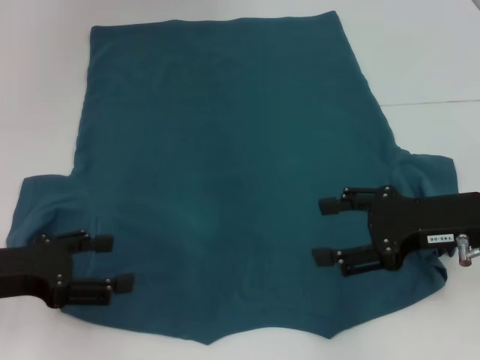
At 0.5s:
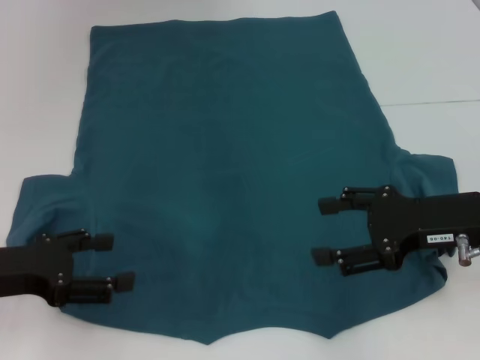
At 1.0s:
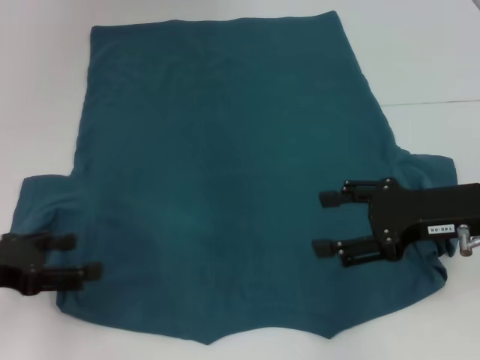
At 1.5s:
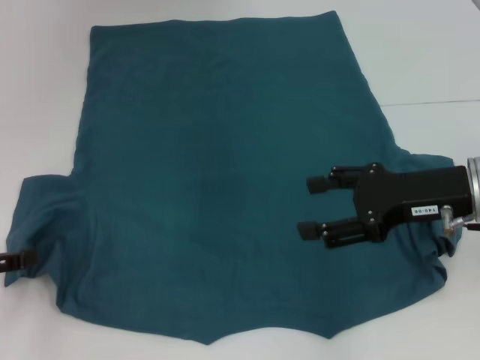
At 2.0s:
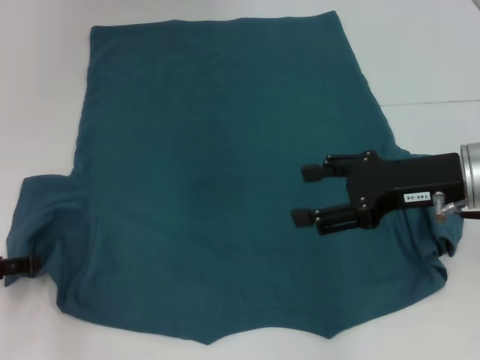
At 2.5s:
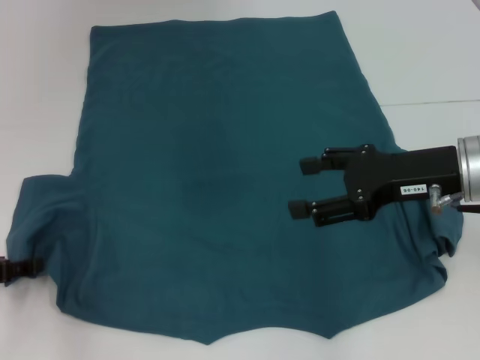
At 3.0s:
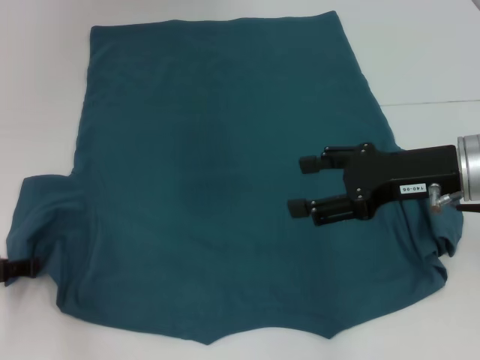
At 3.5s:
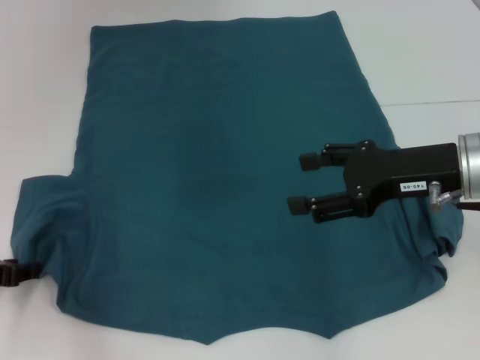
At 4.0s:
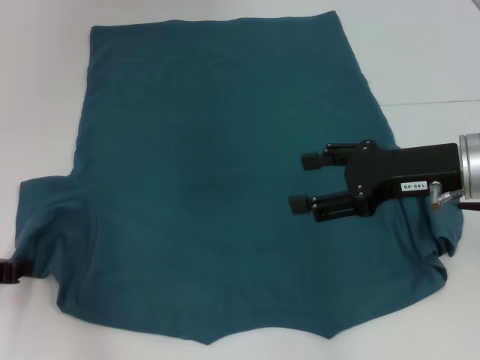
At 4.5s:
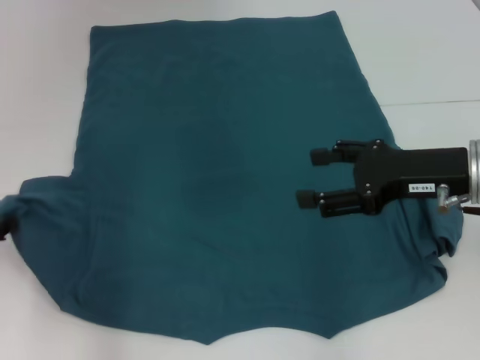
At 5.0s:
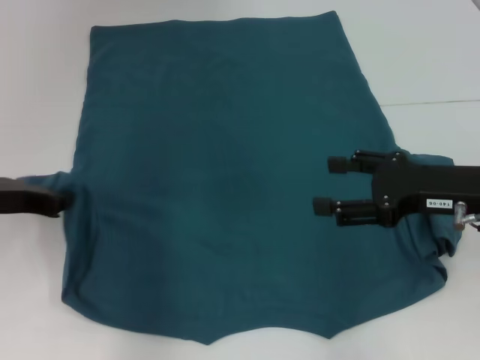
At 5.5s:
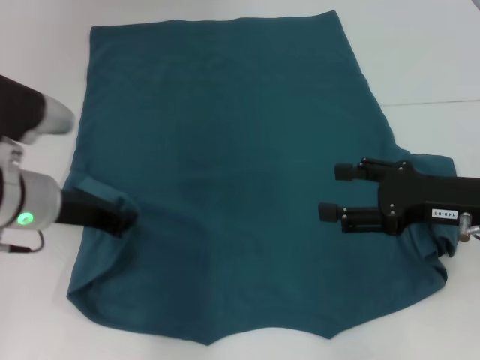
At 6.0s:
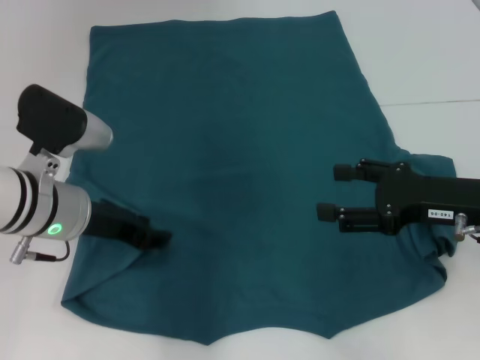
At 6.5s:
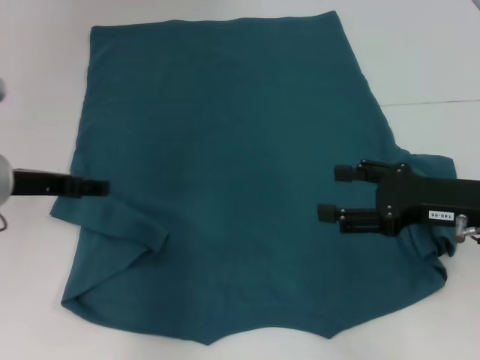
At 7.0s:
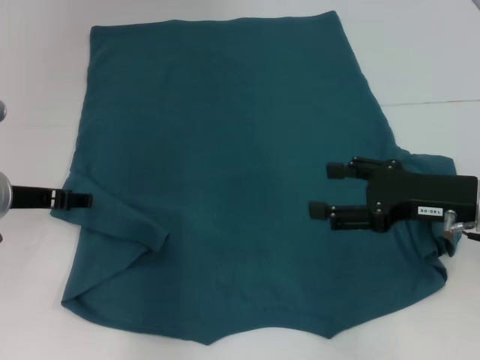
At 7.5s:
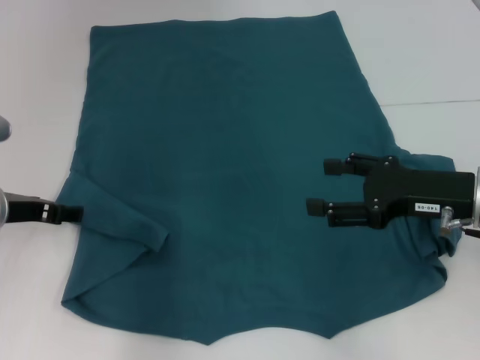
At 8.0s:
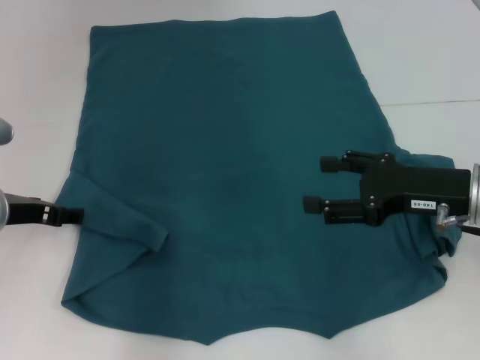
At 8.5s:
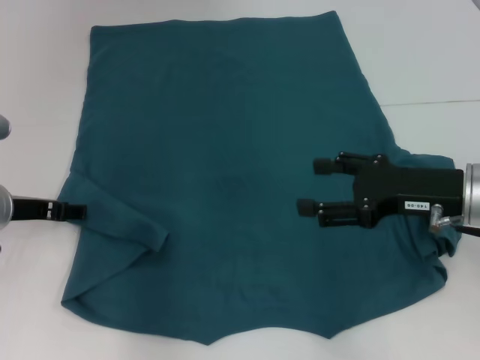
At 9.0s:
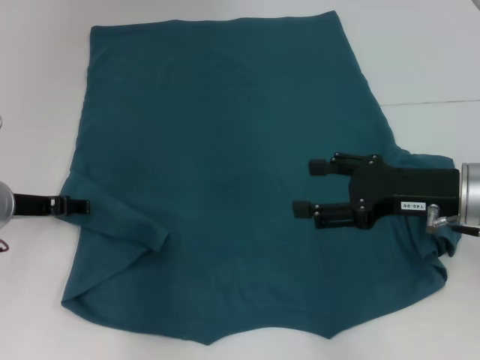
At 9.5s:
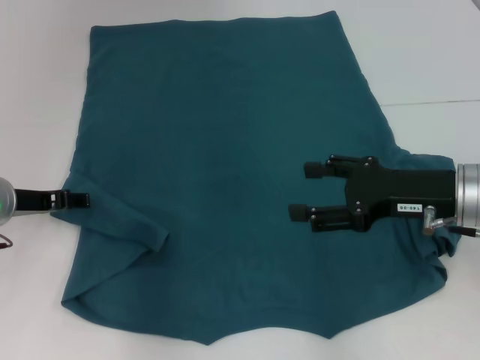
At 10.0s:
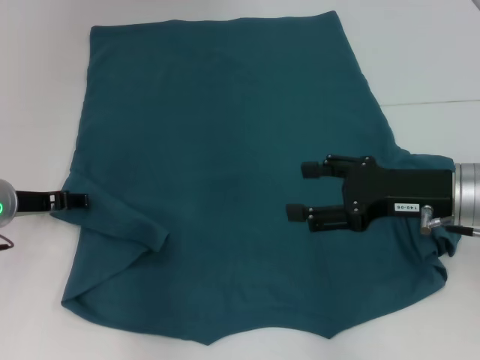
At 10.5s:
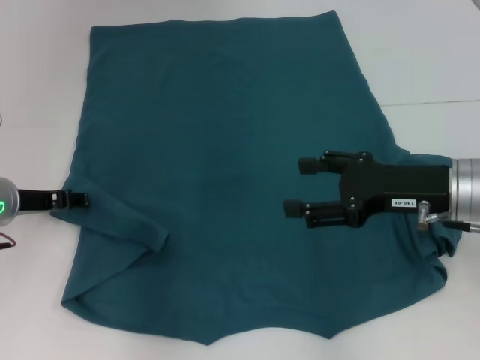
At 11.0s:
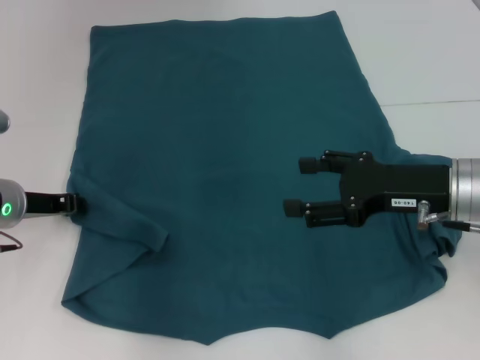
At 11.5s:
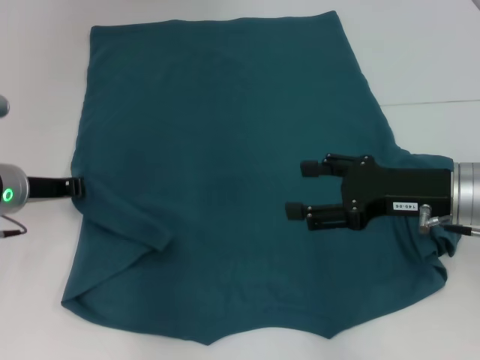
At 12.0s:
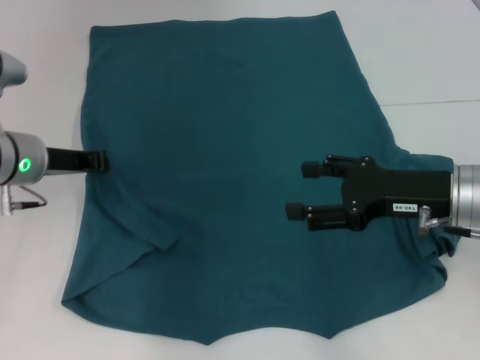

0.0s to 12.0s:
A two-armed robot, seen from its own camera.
0.0s to 2.0s: The left gripper shifts by about 5 cm.
2.0s to 4.0s: The left gripper closes.
4.0s to 6.0s: The right gripper moves roughly 5 cm, while the left gripper moves to the right and forward, roughly 15 cm.
6.0s to 8.0s: The left gripper shifts about 10 cm to the left, and opens its fingers.
8.0s to 10.0s: There are only small adjustments of the grippers.
10.0s to 12.0s: The left gripper changes place by about 5 cm, and closes its fingers.

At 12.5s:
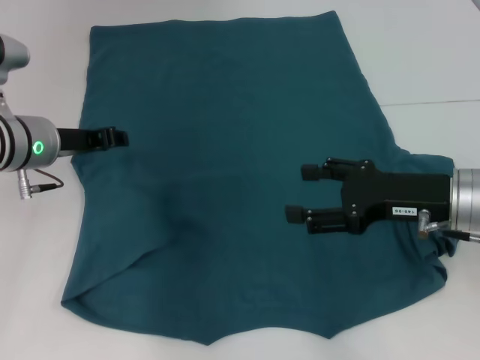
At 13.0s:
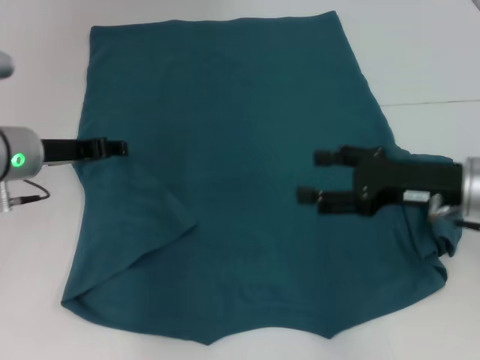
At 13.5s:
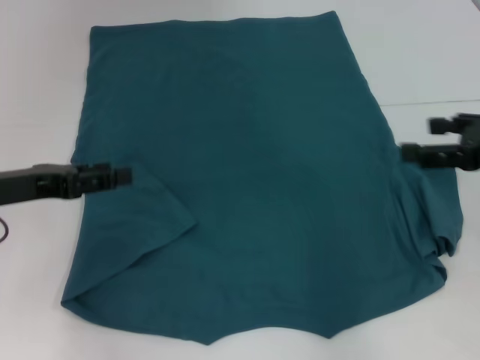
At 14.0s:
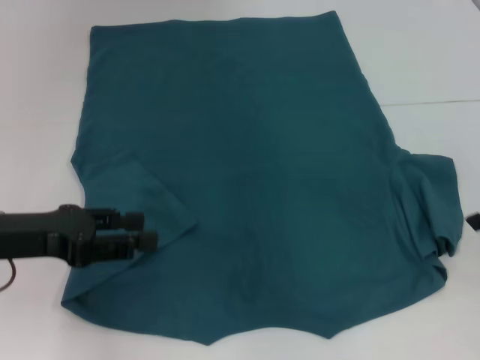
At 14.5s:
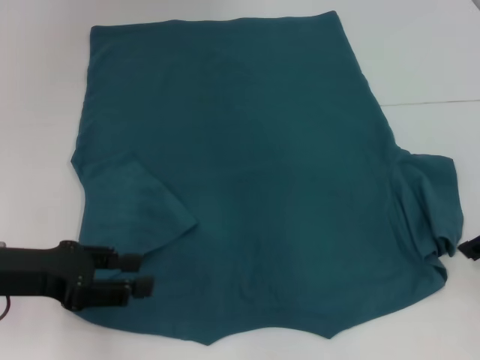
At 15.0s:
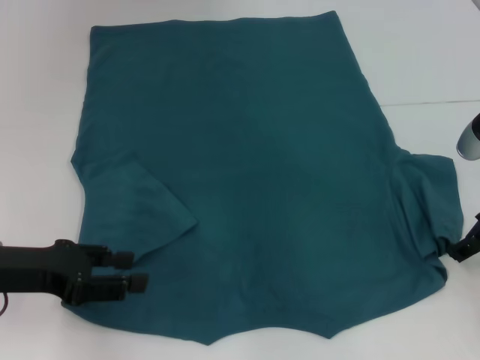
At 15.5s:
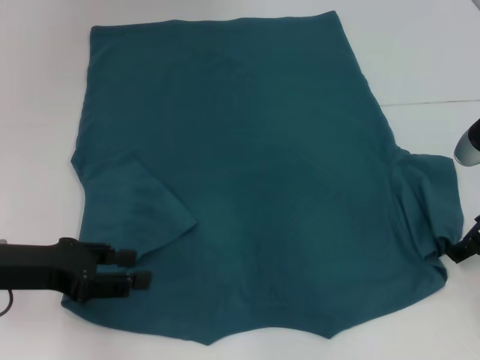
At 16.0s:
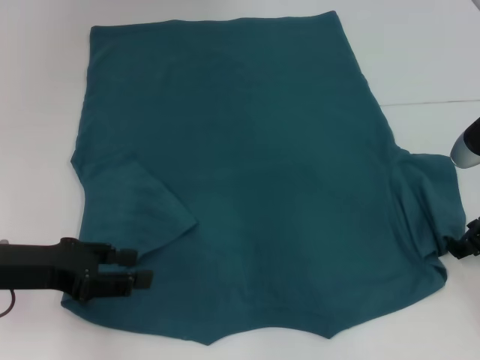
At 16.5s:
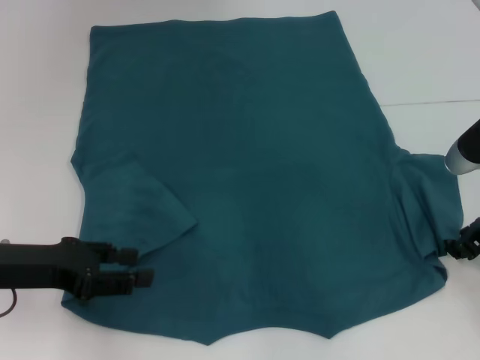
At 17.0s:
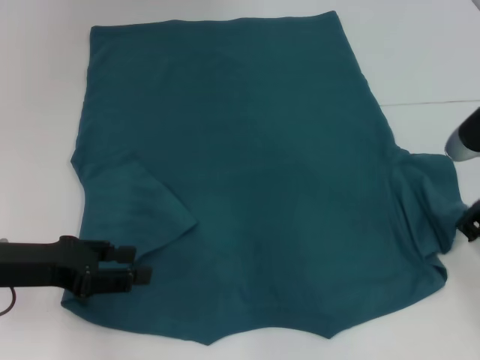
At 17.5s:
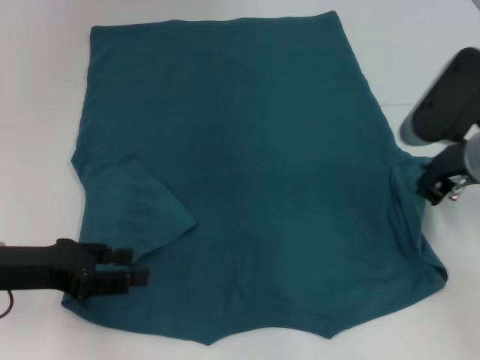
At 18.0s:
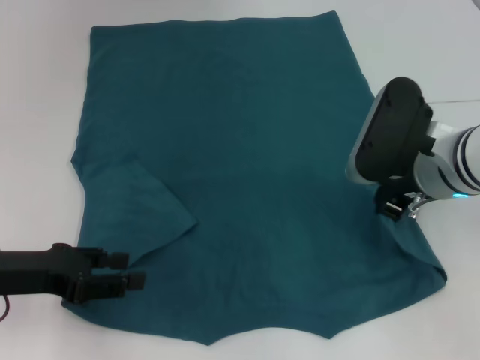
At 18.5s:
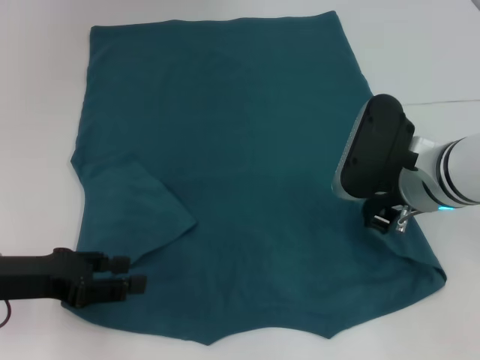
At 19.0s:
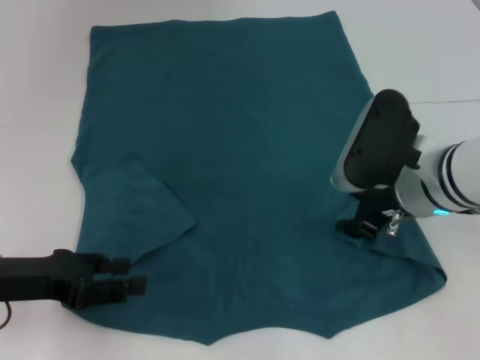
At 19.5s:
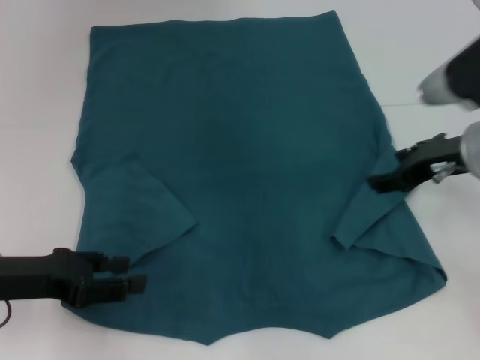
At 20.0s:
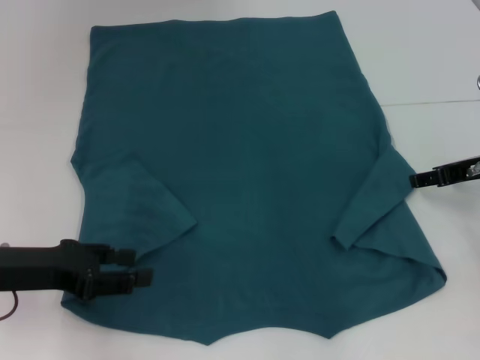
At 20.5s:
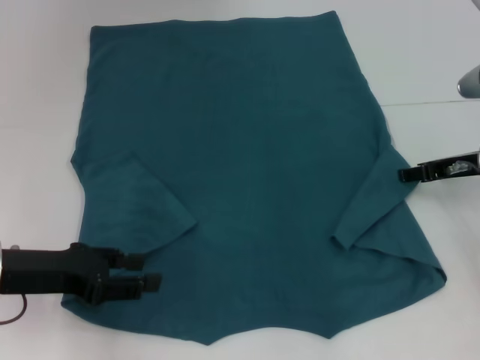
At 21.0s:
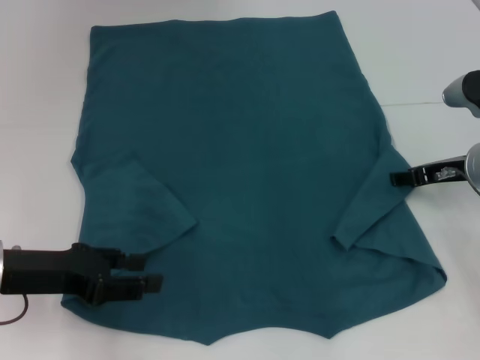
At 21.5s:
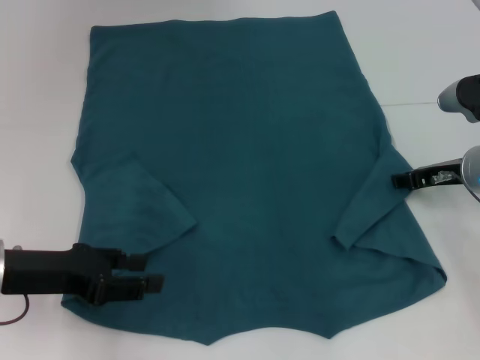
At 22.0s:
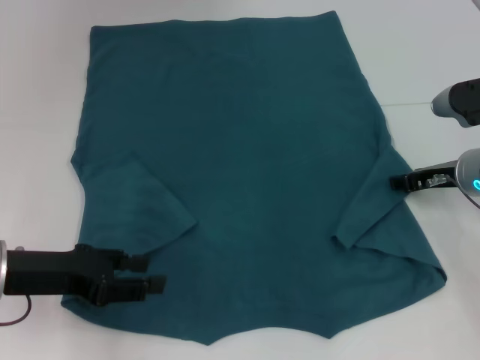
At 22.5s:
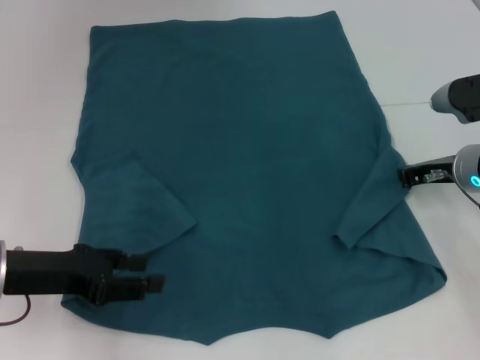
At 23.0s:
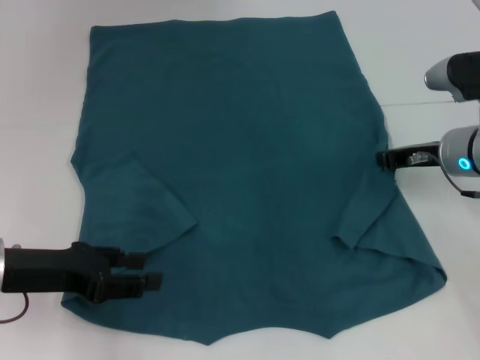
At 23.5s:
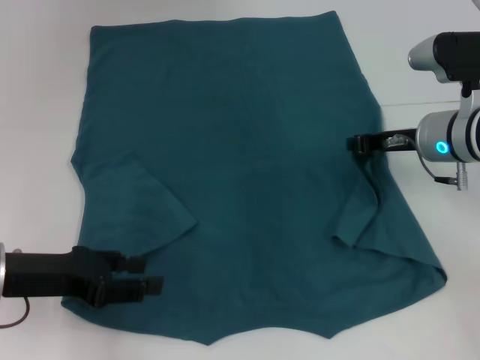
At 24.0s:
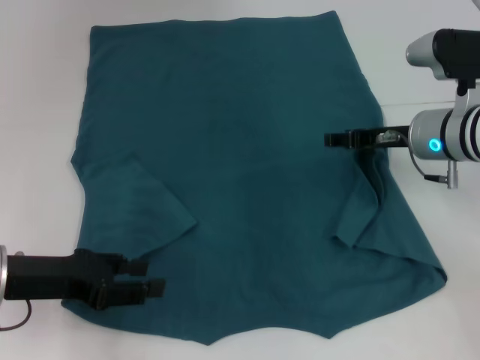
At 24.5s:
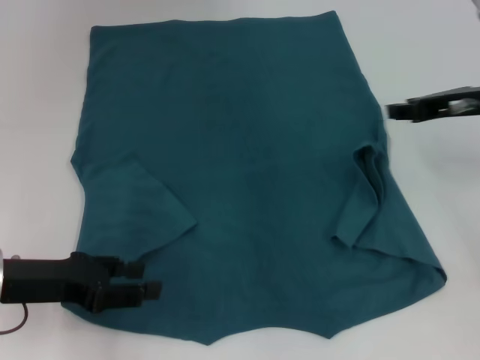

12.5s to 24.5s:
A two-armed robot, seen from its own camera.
12.5s to 14.5s: The left gripper heads backward and to the left, covering some 15 cm, and opens; the right gripper shifts approximately 10 cm to the right and upward.
14.5s to 16.5s: The right gripper shifts about 5 cm downward, and closes up.
16.5s to 18.5s: The right gripper is displaced to the left by roughly 10 cm, and closes.
18.5s to 20.5s: The right gripper shifts approximately 10 cm to the right, and opens up.
20.5s to 22.5s: The right gripper closes up.
22.5s to 24.5s: The right gripper heads upward, covering roughly 10 cm, and opens its fingers.

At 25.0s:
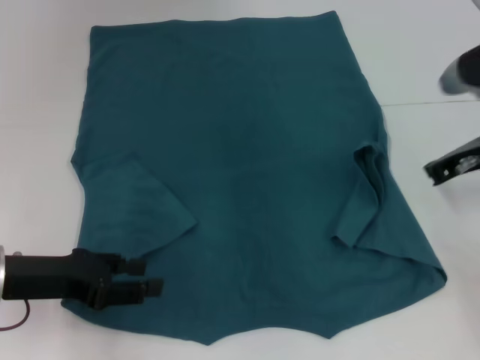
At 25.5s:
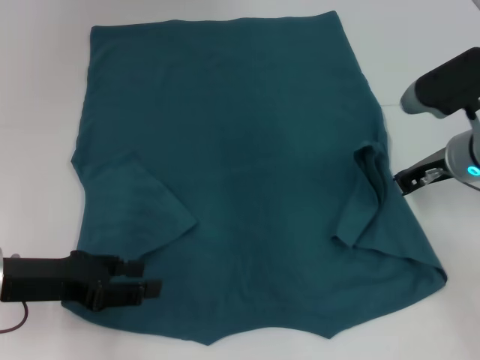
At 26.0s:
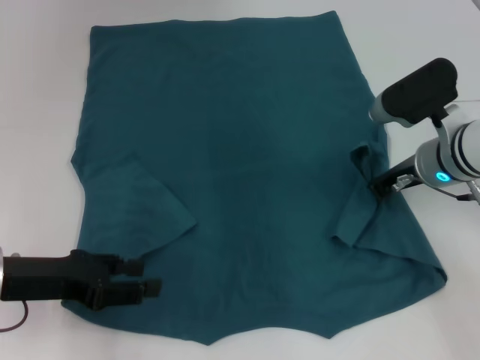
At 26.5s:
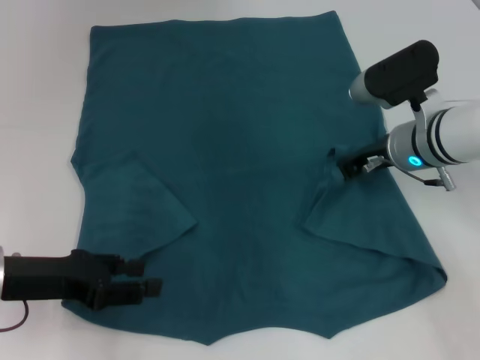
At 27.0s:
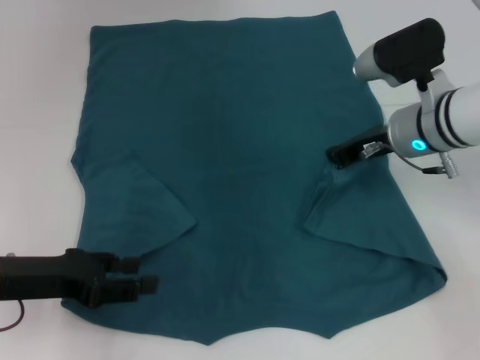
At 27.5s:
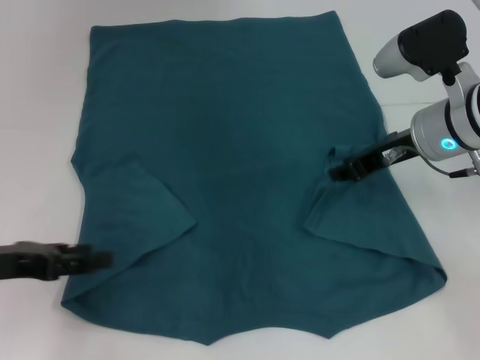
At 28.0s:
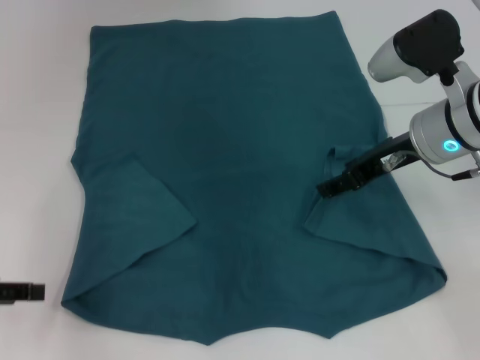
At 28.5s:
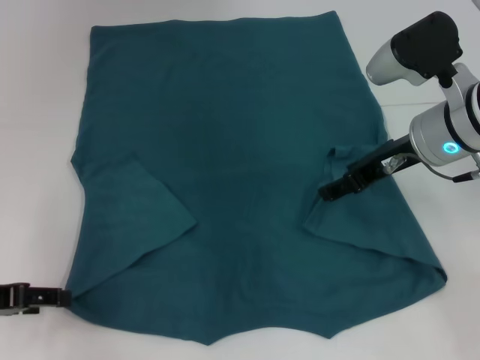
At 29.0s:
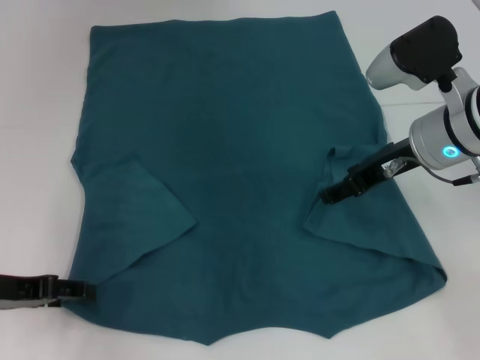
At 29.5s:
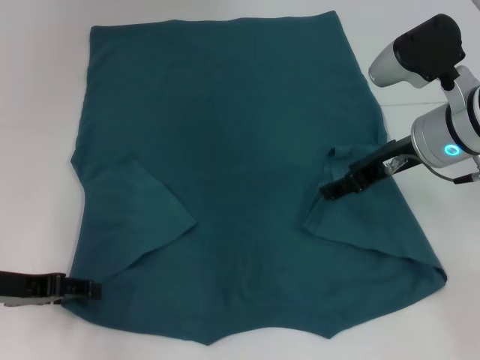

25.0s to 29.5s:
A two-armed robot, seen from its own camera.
Step, 25.0s to 27.5s: Fold the bottom right sleeve to the right.
25.0s to 27.0s: The right gripper heads to the left, covering roughly 10 cm.
27.0s to 29.5s: The right gripper opens its fingers.
